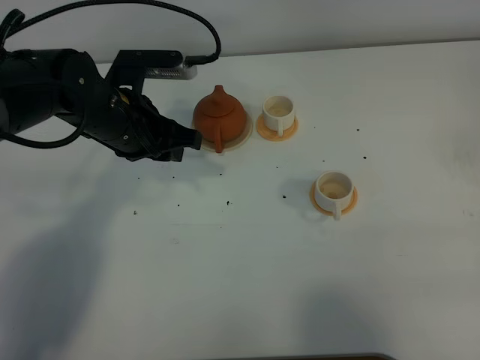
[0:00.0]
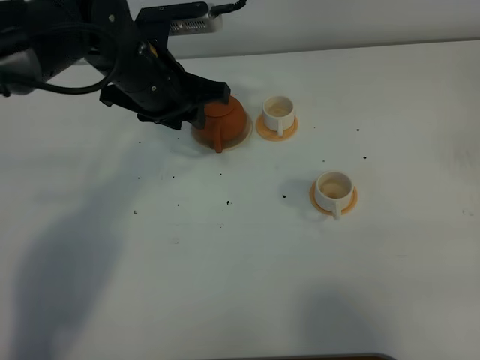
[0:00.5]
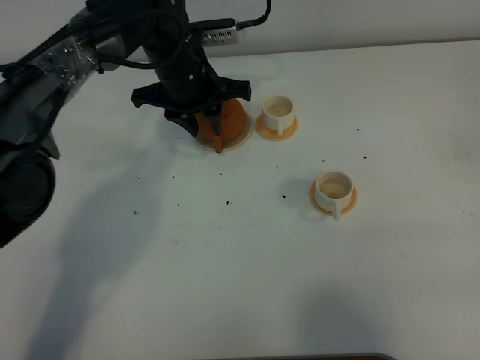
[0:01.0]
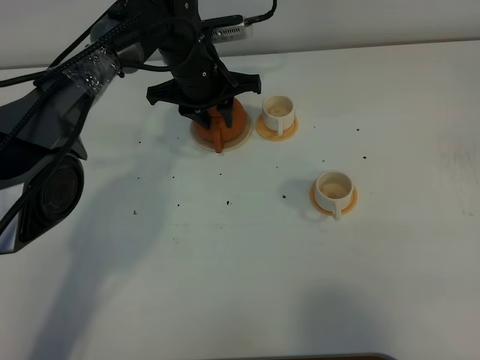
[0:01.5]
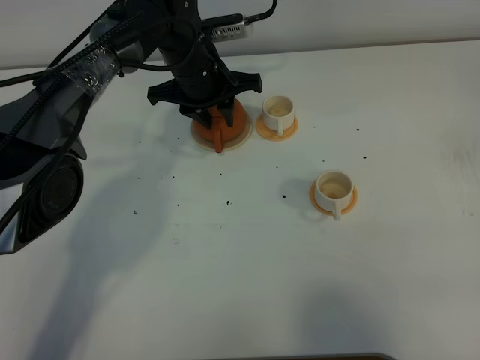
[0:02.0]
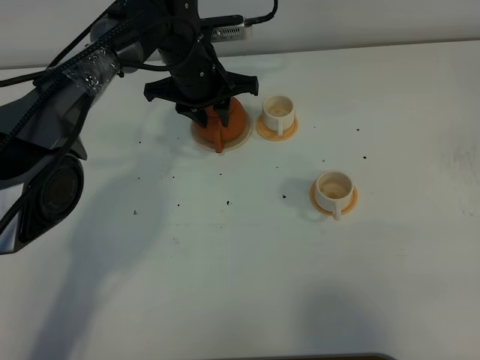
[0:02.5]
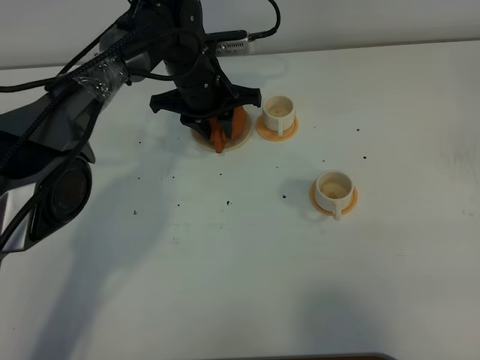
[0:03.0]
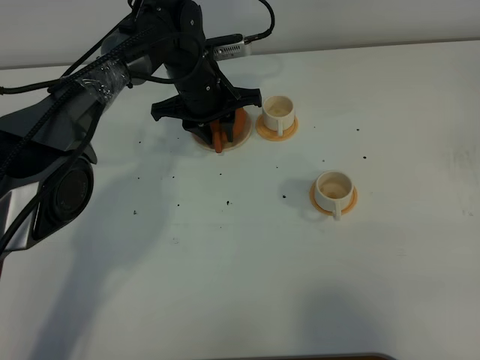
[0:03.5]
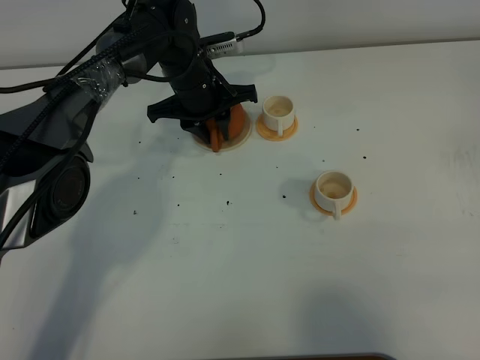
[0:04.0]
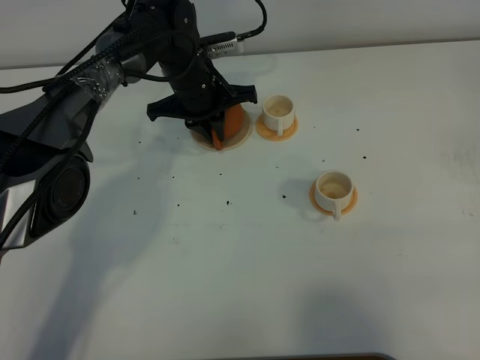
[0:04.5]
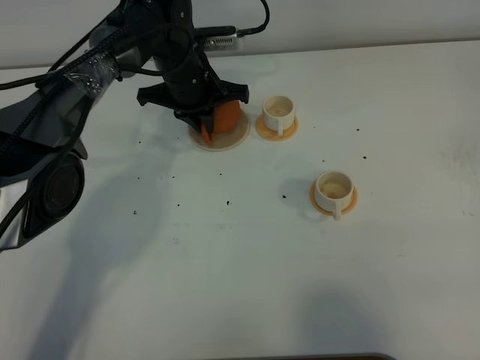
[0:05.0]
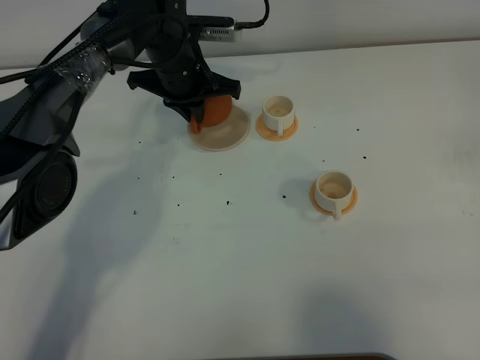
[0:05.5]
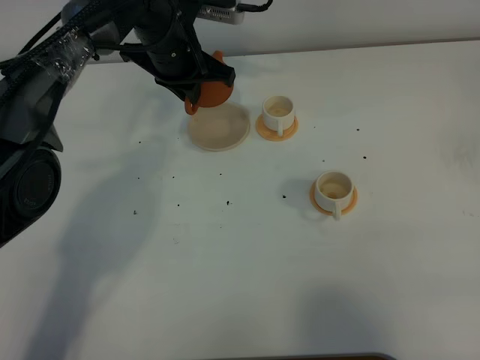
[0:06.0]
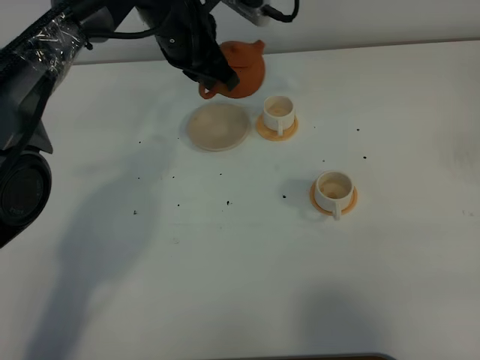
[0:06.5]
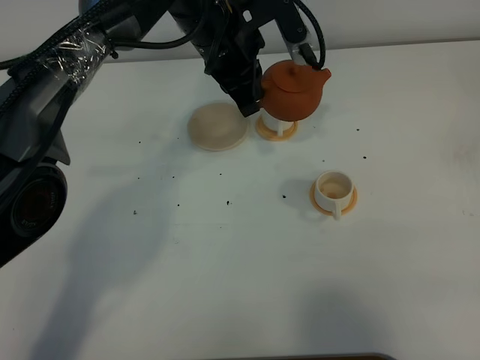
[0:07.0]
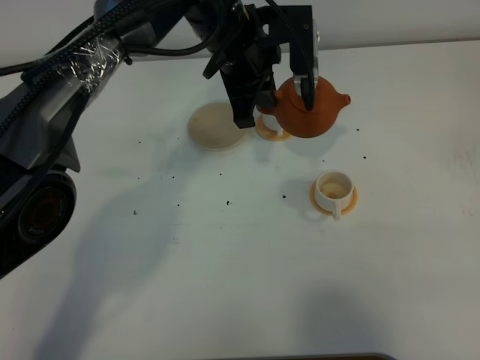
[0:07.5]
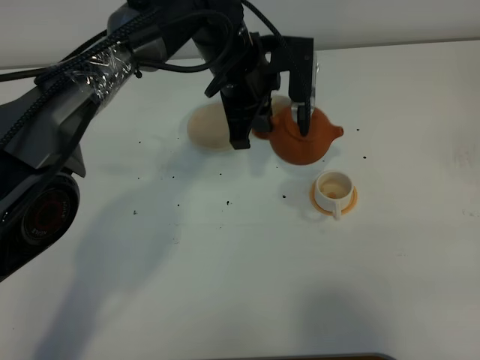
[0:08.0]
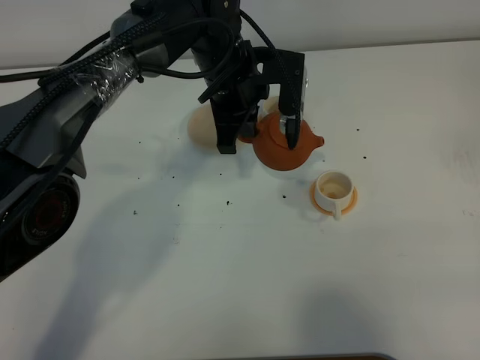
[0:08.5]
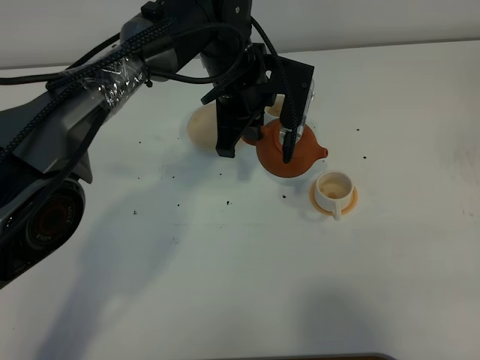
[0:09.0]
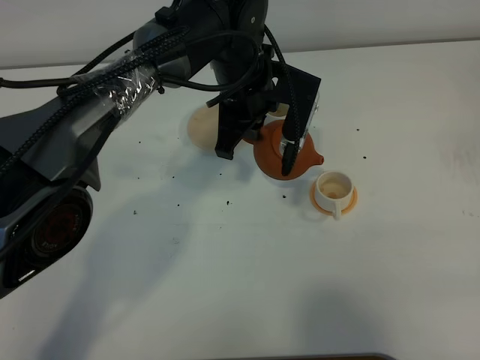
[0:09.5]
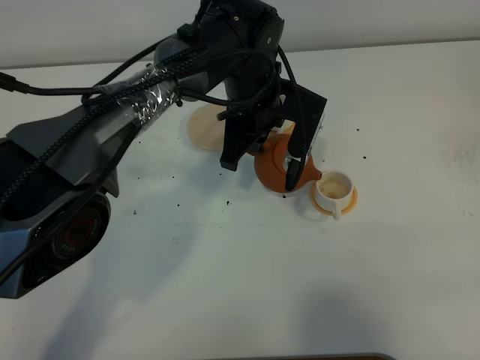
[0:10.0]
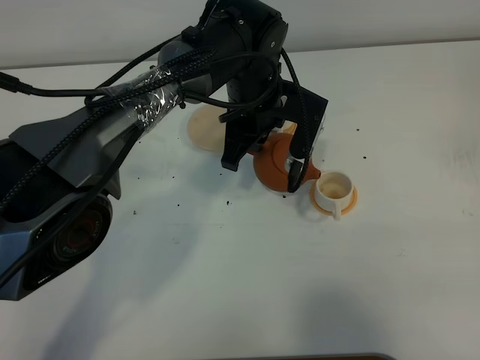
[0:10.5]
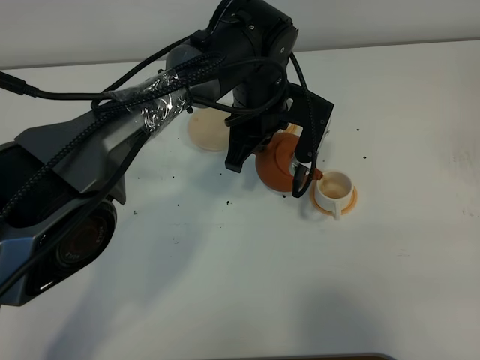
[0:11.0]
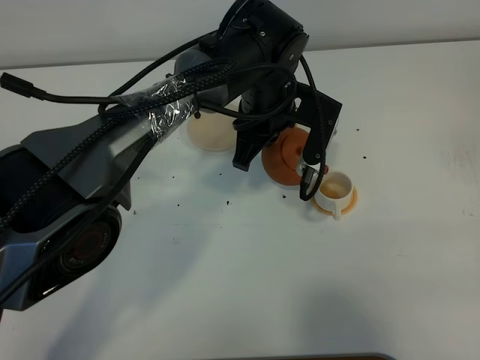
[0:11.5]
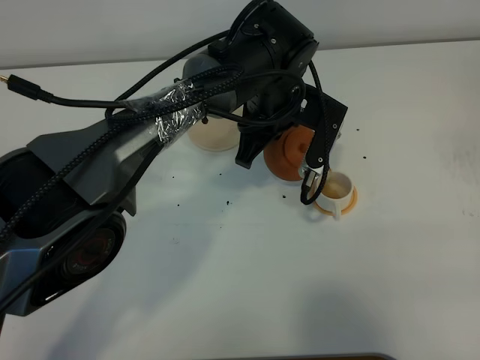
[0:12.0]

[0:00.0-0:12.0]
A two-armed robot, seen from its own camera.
Task of the whole recording: grasp the brown teapot and pour the tea into the two white teacups one by one, put the brown teapot back in its original place.
Step, 0.0 to 5.0 s: Pick up the teapot with the left gripper.
0.0 to 2.0 s: The left gripper heads forward and to the right, covering about 15 cm.
2.0 to 4.0 s: There are only small adjustments of the grippers.
4.0 to 6.0 s: The left gripper is displaced upward by roughly 5 cm, and closes.
6.0 to 8.0 s: The left gripper shifts about 10 cm to the right and backward.
10.0 to 12.0 s: There are only small adjustments of the grippers.

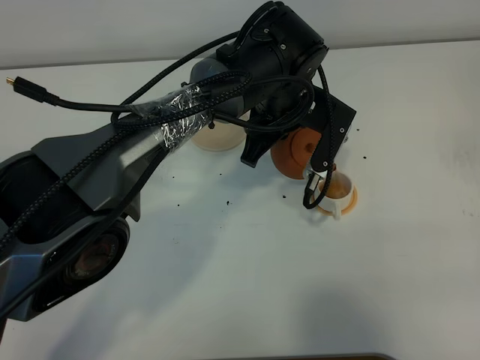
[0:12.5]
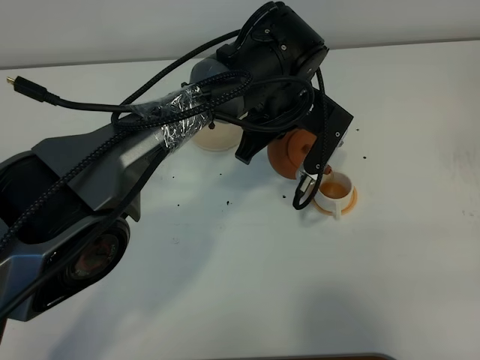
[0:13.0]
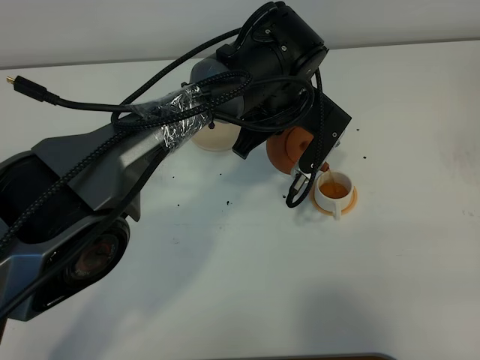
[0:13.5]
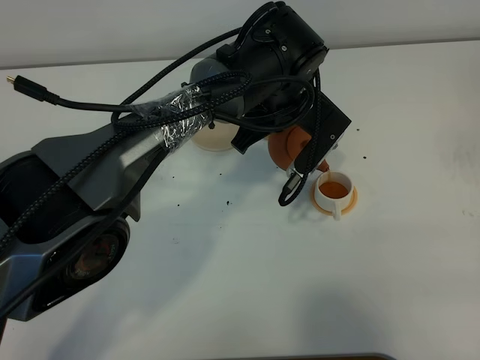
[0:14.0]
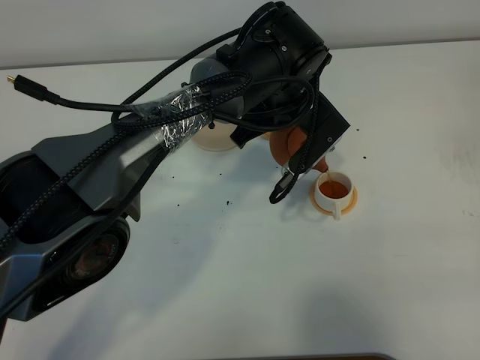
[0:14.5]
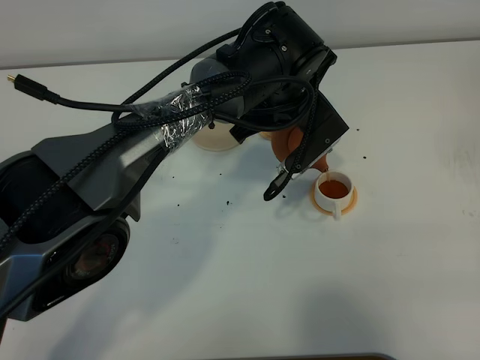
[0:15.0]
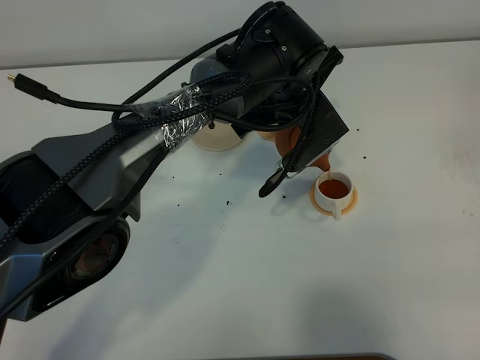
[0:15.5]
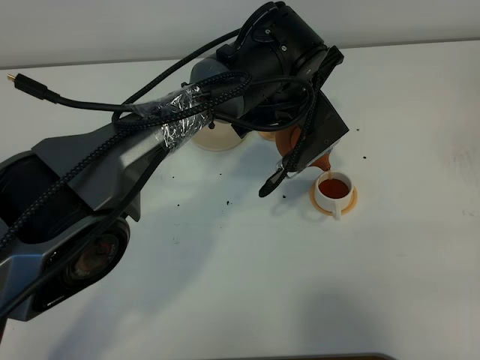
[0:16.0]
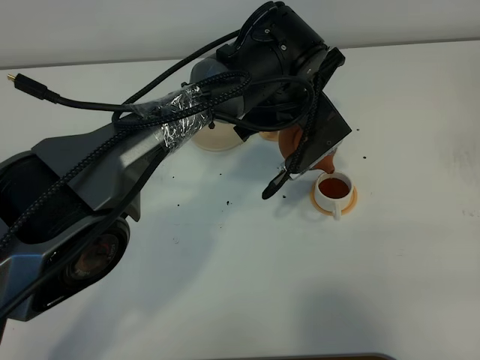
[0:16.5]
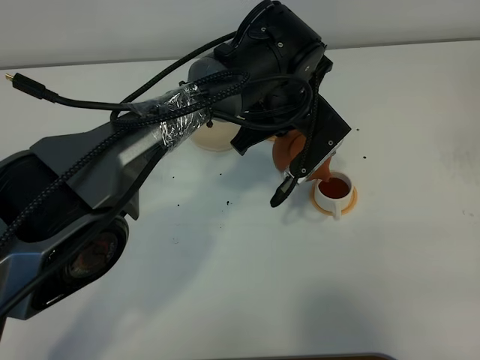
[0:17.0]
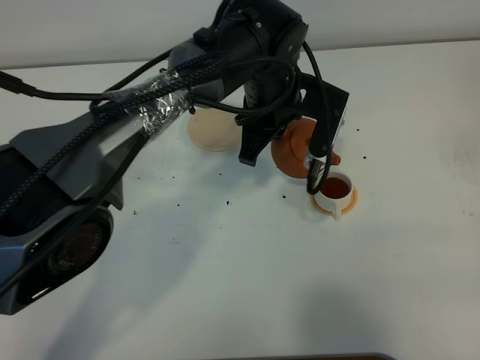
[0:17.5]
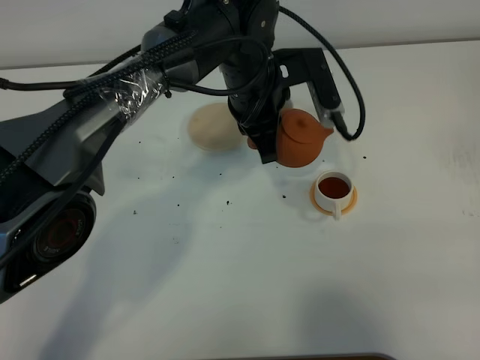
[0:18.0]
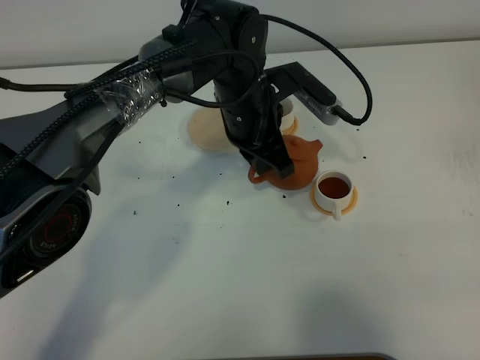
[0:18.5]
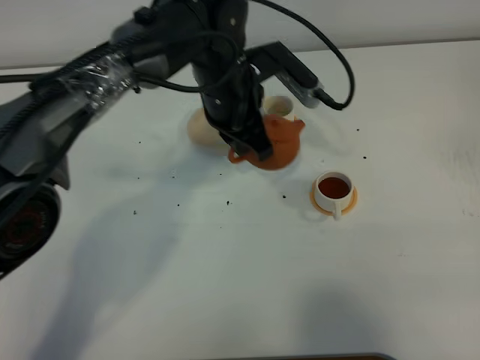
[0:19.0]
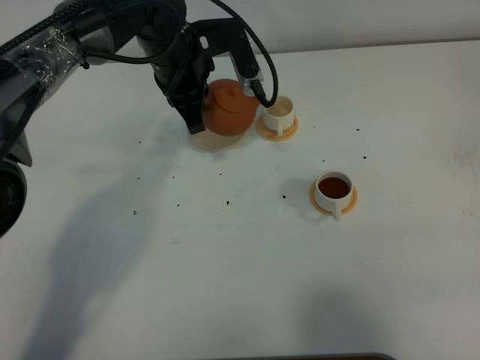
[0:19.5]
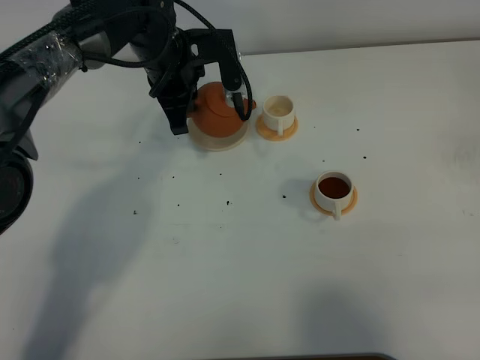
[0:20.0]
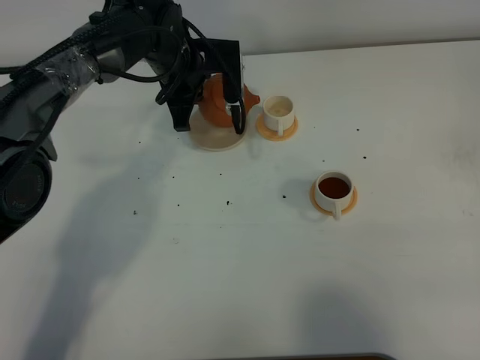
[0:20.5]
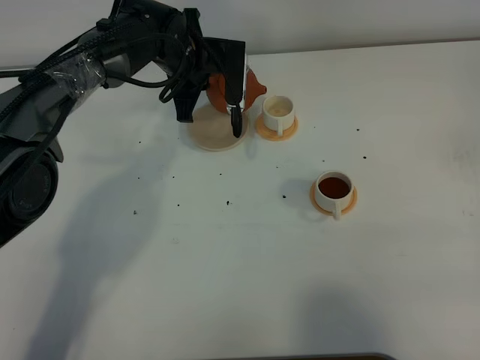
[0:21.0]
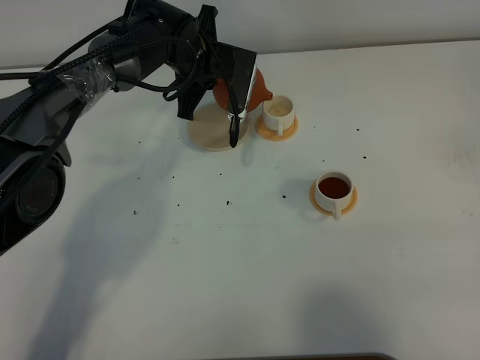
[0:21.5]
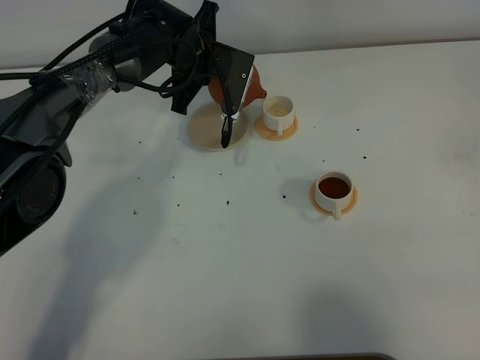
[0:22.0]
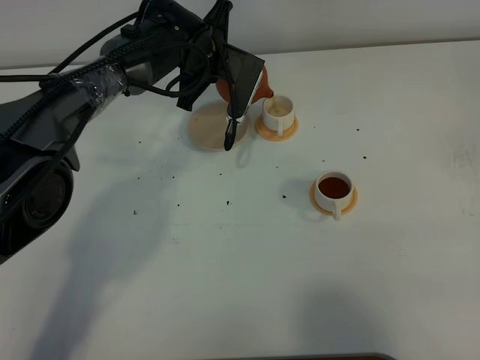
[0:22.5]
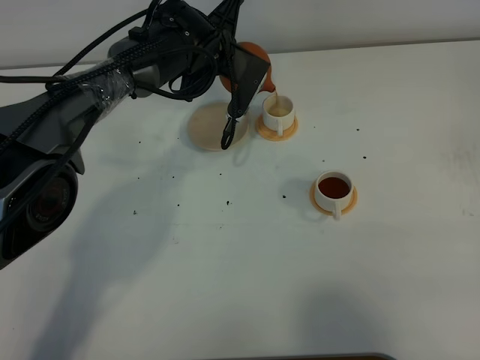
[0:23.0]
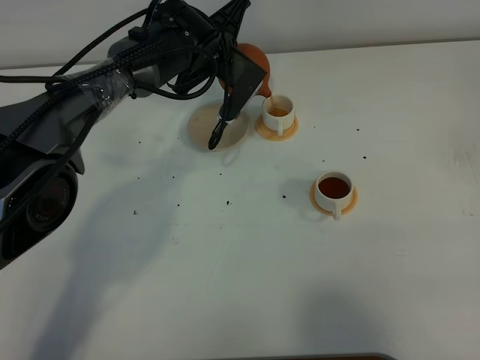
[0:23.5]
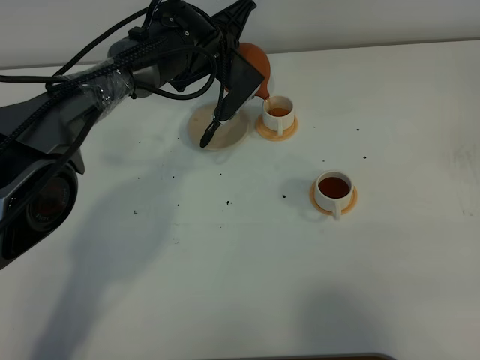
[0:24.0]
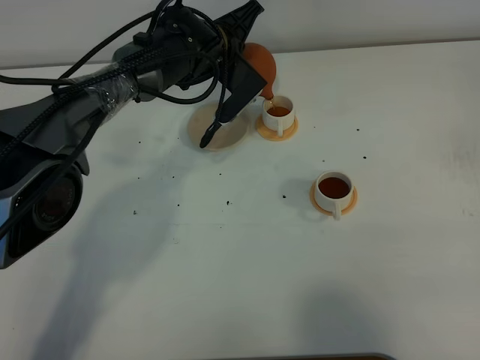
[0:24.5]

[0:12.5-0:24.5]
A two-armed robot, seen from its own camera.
Task of the whole recording: grasp the brown teapot and pour the tea into the two white teacups one by one, put the brown teapot back in its original place.
12.5 to 14.5 s: The grippers make only small movements.
14.5 to 16.5 s: There are only small adjustments of the grippers.
16.5 to 18.5 s: The left gripper goes roughly 5 cm to the left.
18.5 to 20.5 s: The left gripper travels to the left and forward by about 15 cm.

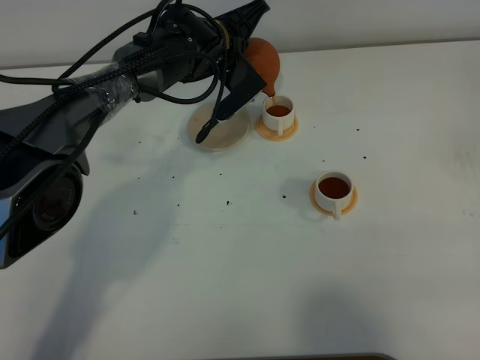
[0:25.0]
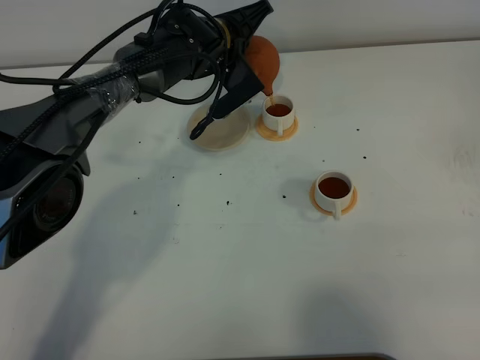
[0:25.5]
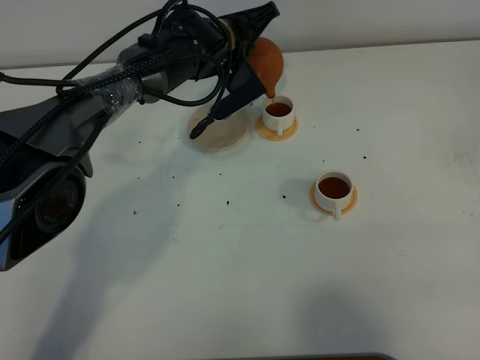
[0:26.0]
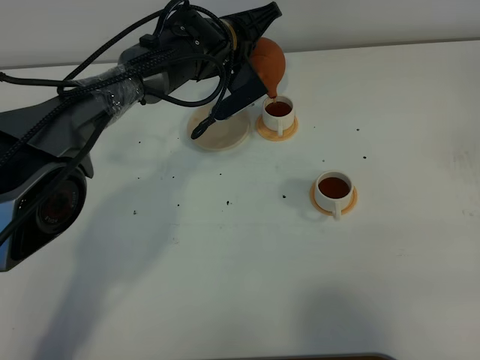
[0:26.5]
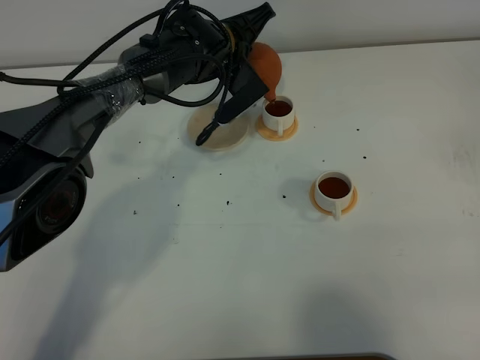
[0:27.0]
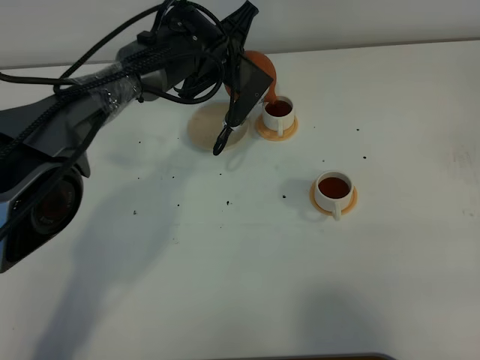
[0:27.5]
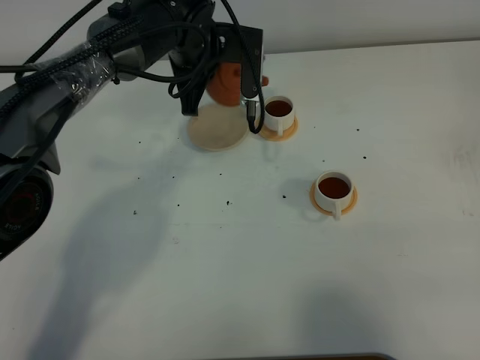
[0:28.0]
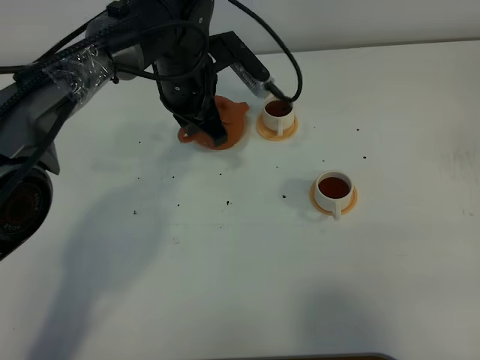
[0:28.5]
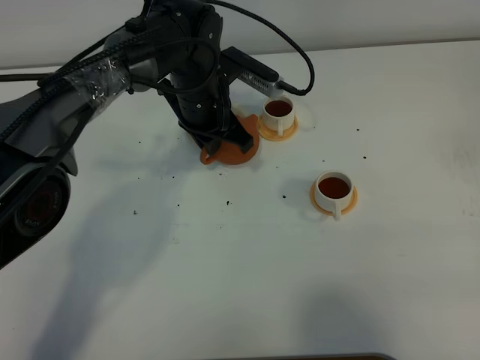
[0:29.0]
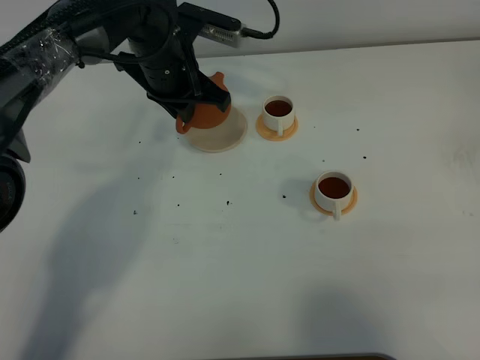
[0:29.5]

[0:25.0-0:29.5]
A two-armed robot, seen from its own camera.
Task of the whole recording: grasp the brown teapot and pour the tea into the two white teacups one by one, put the brown teapot back in its original place.
Step, 25.0 to 27.5 s: Pour tea into the teacup with the left gripper.
25.0 to 27.0 s: There are only small adjustments of the grippers.
27.0 to 29.5 s: The left gripper travels to the left and backward by some 10 cm.
